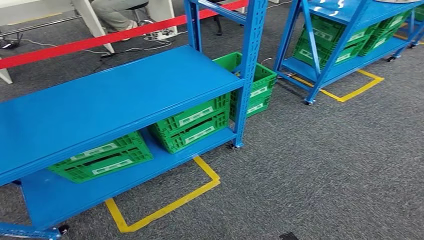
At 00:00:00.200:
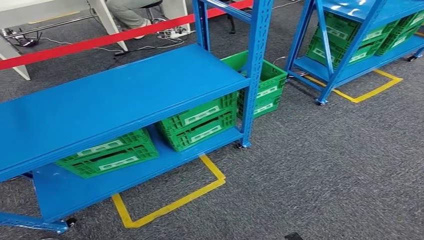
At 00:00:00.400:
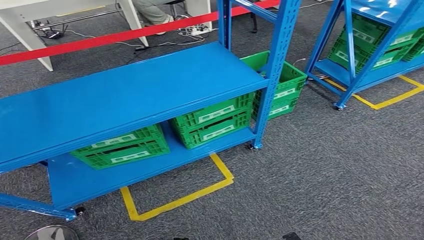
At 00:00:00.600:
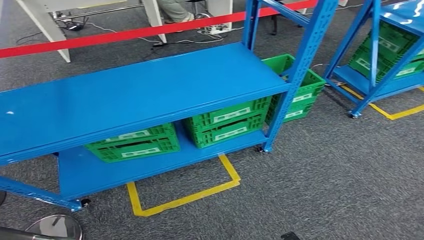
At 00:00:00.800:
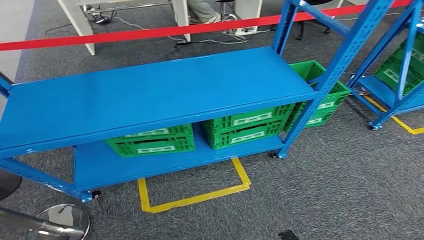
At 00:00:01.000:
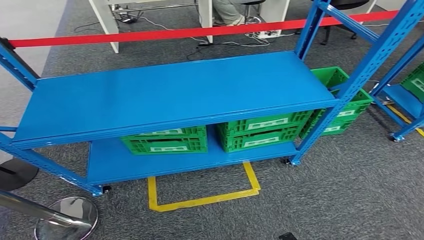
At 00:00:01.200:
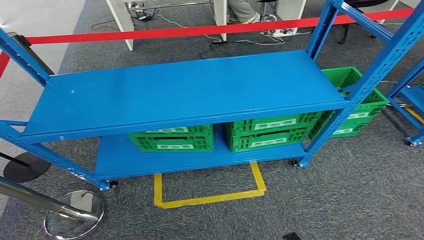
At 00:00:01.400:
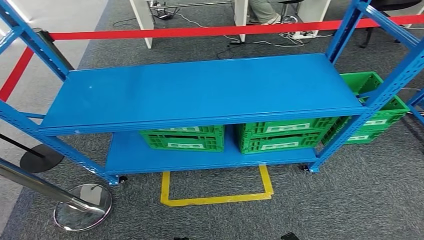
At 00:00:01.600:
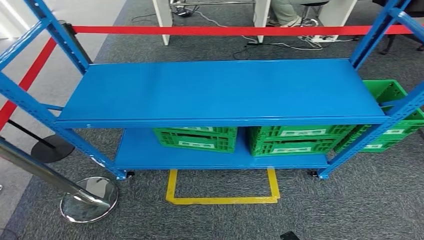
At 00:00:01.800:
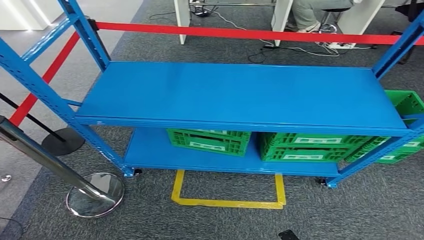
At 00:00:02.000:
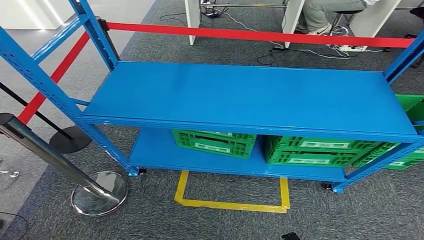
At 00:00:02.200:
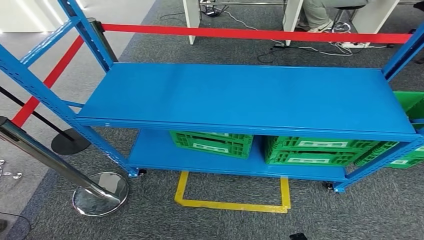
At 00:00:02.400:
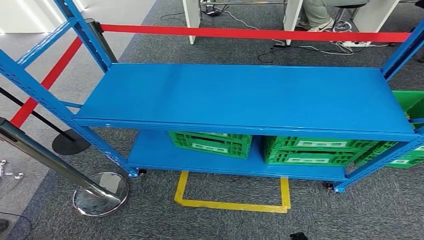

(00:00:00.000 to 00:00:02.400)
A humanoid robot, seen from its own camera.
Step, 00:00:00.000 - 00:00:02.400: Move to the initial position at the workbench.
